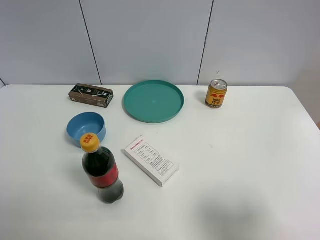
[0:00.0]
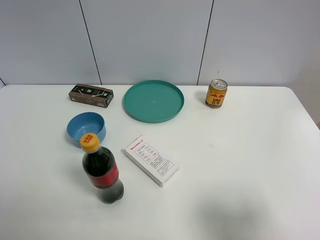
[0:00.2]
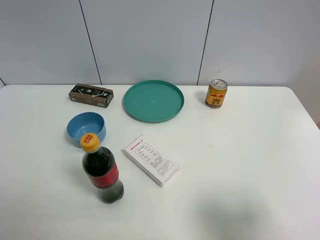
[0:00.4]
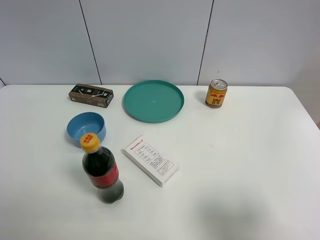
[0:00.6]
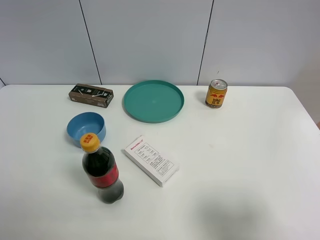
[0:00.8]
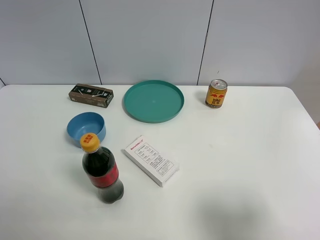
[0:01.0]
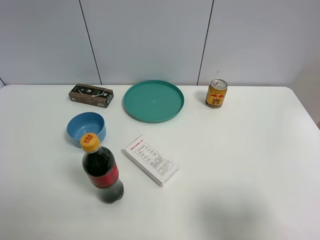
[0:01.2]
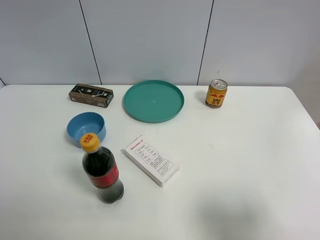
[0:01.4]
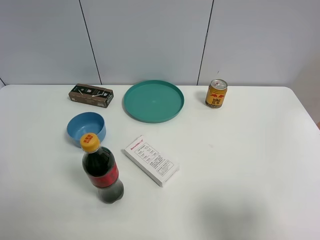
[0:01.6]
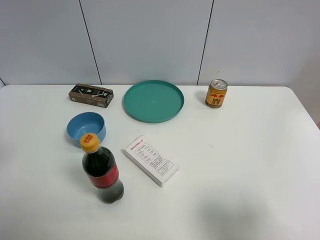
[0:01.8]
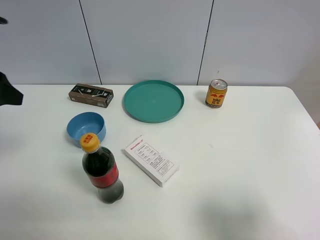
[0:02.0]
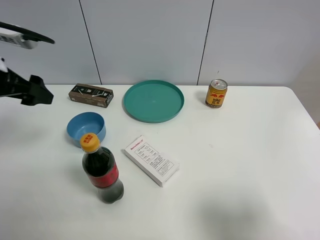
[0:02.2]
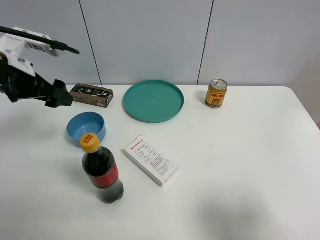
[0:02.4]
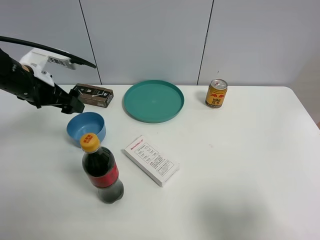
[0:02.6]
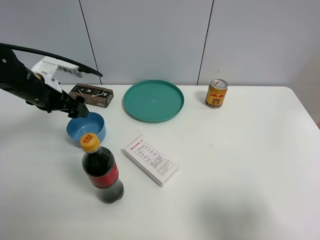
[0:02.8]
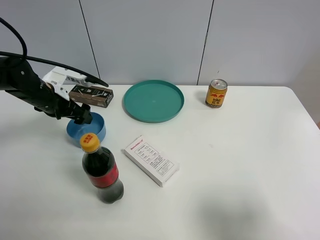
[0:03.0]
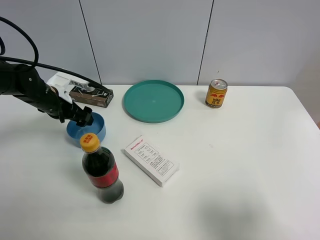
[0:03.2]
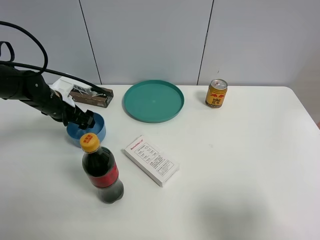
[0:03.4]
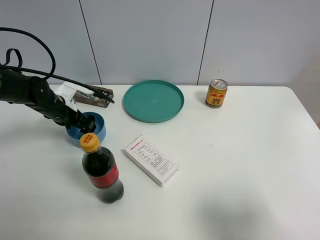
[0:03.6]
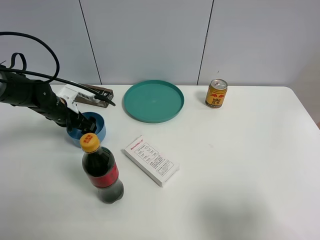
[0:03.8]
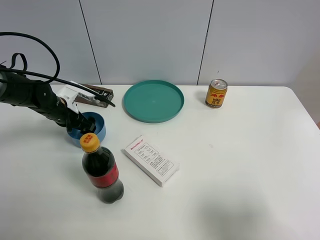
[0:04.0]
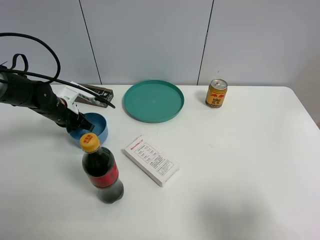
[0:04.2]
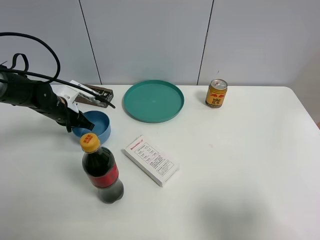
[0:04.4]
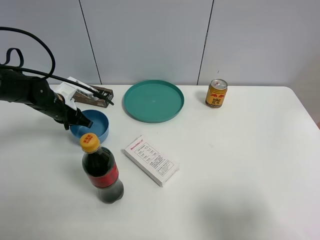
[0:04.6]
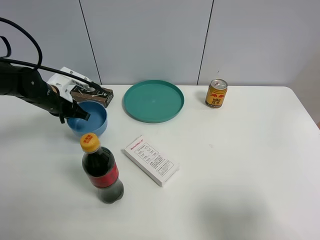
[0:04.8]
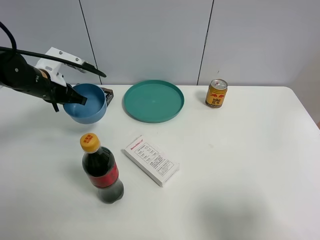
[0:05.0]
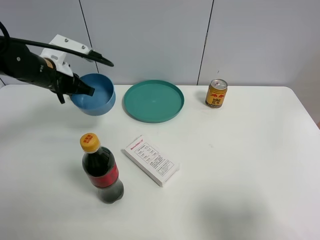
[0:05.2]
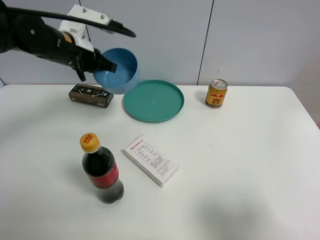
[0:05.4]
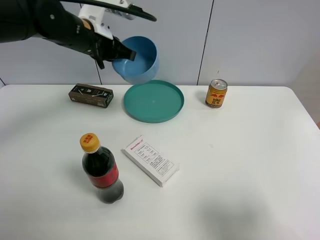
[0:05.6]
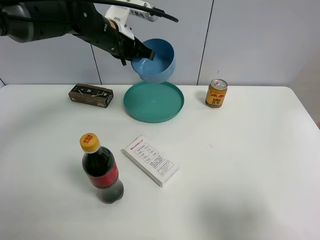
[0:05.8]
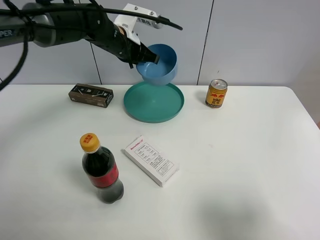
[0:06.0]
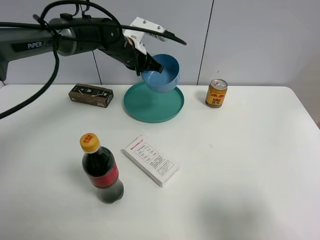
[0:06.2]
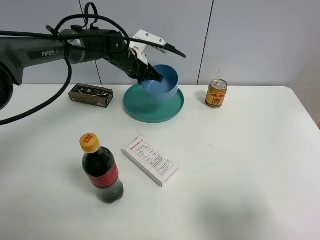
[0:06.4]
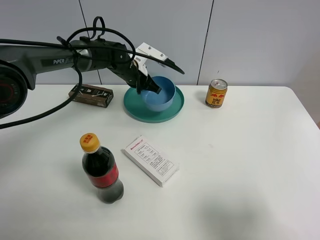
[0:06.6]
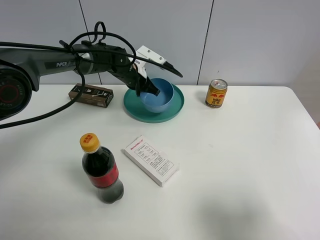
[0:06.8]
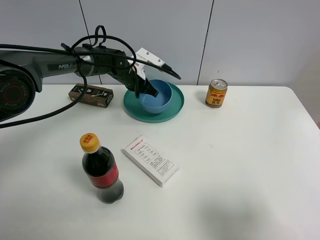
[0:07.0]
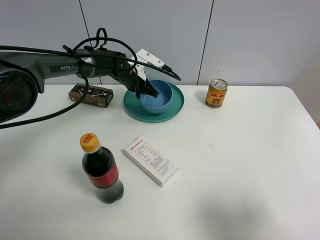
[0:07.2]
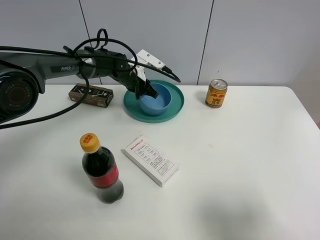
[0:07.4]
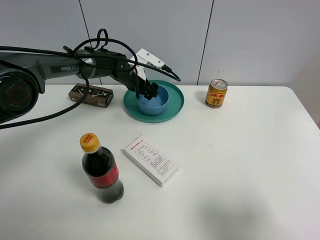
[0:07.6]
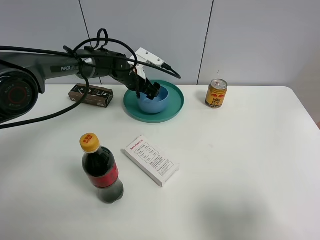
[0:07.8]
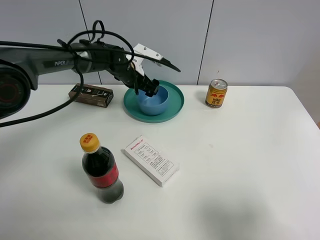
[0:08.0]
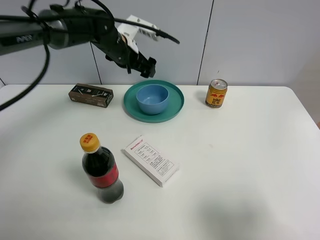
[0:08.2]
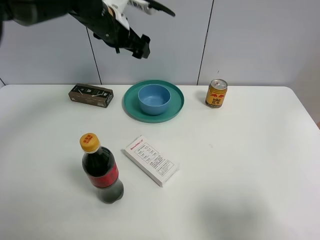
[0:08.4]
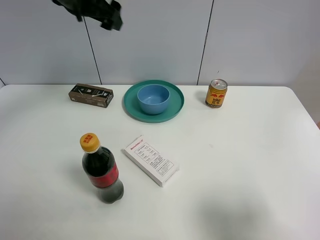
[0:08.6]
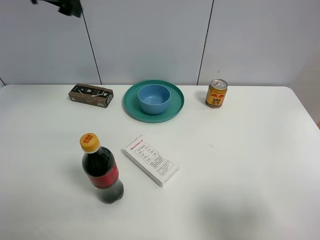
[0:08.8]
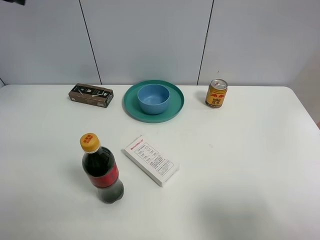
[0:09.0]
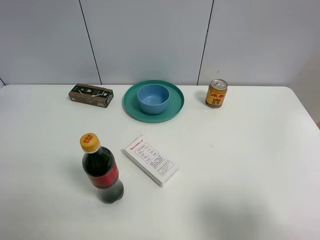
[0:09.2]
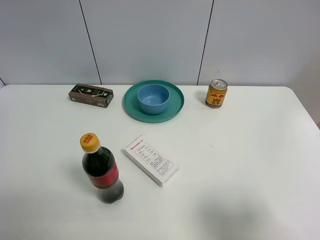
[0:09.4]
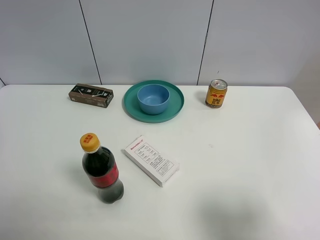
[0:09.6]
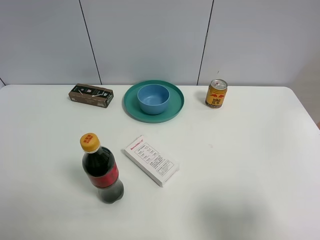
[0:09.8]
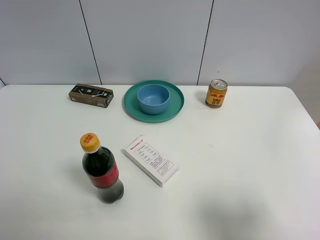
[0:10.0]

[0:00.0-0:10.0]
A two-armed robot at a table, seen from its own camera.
Task of the whole recording: the gripper move the object.
Step, 0:00.0 to 0:04.2: Grasp the blue bowl with the left gripper.
Step, 0:04.4 to 0:07.4: Place the blue bowl into the green plate with the left gripper.
0:01.4 to 0:02.8: The left gripper goes roughly 30 cm forward and downward.
0:02.8 to 0:04.2: The left gripper moves downward, approximately 10 cm, and closes its fingers.
0:04.2 to 0:05.8: The left gripper goes roughly 25 cm upward and to the right.
0:05.8 to 0:07.2: The left gripper is displaced downward and forward by roughly 15 cm.
0:07.2 to 0:08.6: The left gripper heads upward, covering approximately 25 cm, and opens up.
0:08.6 to 0:10.0: The left gripper travels backward by roughly 35 cm.

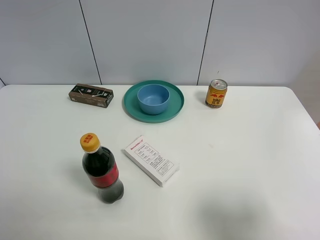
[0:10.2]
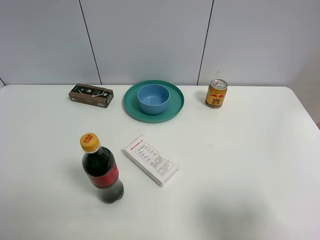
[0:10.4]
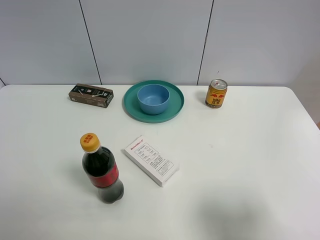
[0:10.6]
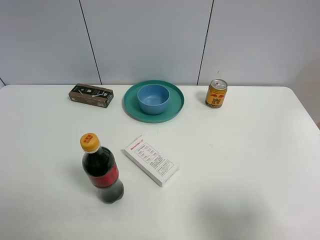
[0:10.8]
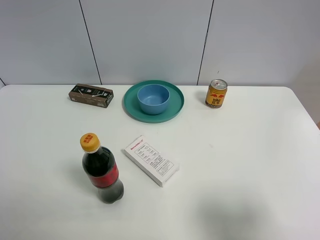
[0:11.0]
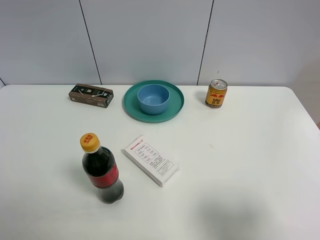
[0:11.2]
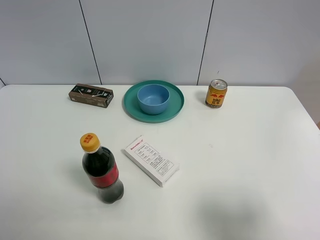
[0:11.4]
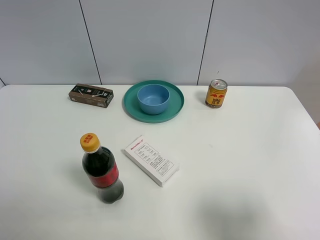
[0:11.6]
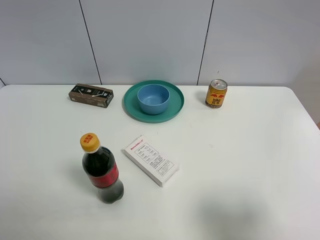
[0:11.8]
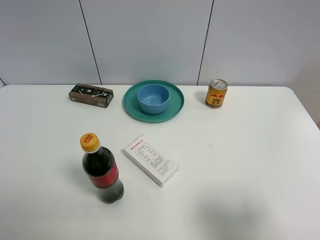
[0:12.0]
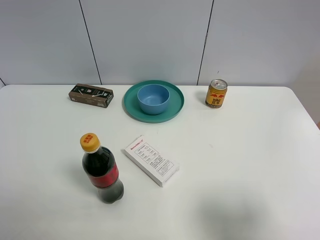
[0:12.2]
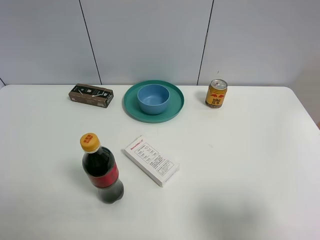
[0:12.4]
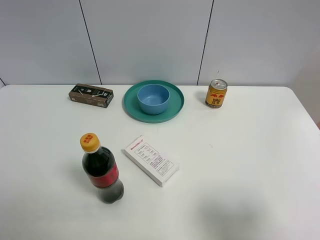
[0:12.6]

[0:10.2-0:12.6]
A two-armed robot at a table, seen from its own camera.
Task of the whole recording: the gripper move the object.
0:11.4 to 0:12.6: The two grippers keep their place.

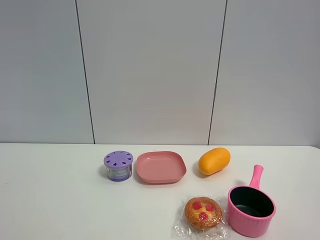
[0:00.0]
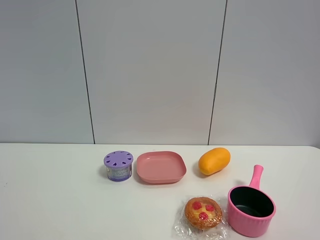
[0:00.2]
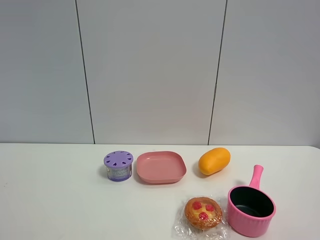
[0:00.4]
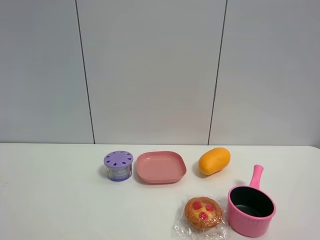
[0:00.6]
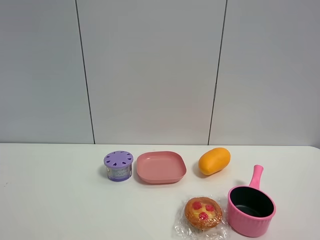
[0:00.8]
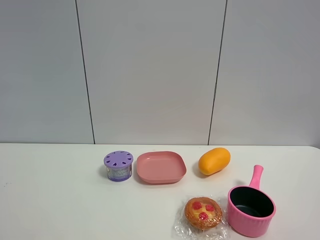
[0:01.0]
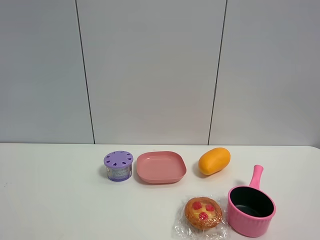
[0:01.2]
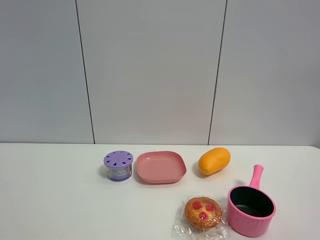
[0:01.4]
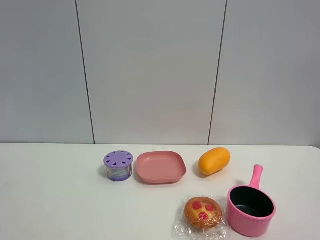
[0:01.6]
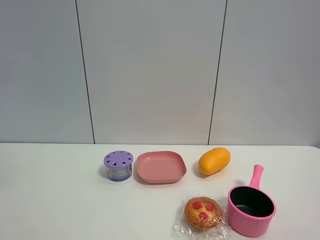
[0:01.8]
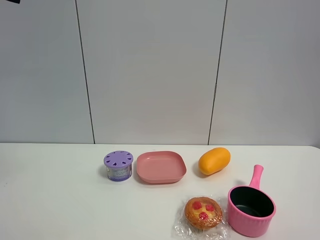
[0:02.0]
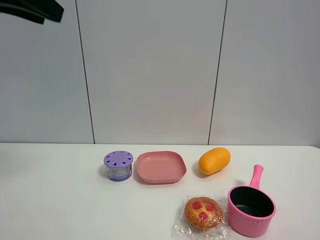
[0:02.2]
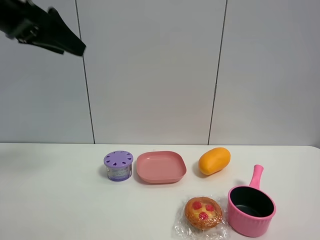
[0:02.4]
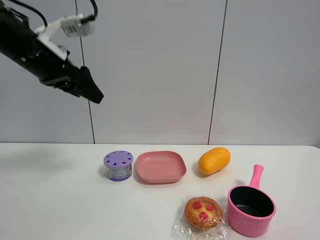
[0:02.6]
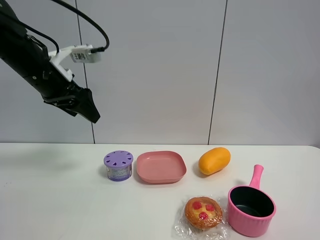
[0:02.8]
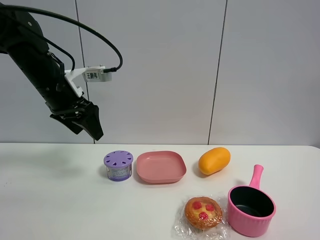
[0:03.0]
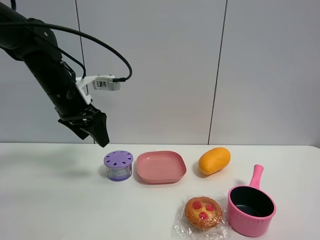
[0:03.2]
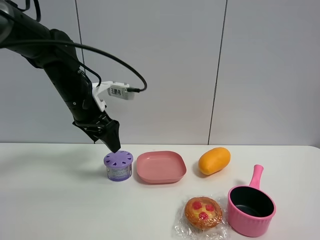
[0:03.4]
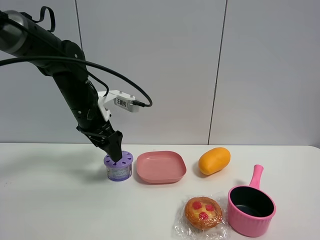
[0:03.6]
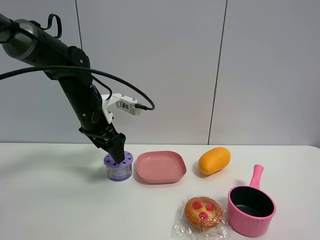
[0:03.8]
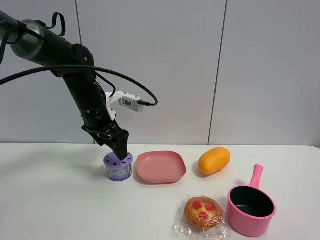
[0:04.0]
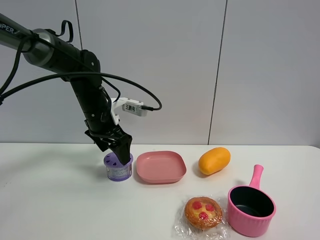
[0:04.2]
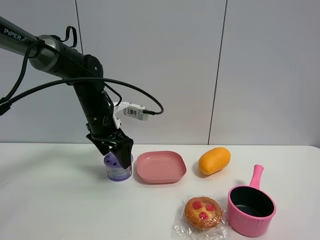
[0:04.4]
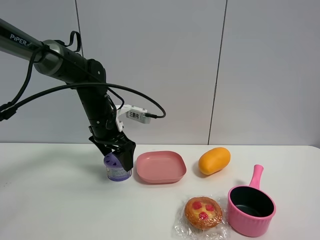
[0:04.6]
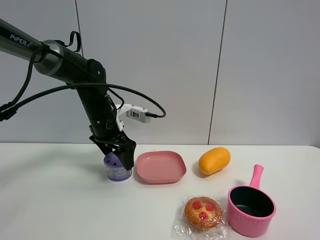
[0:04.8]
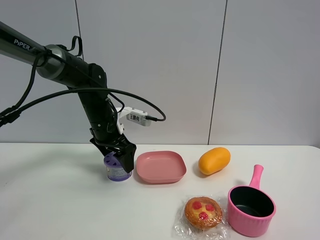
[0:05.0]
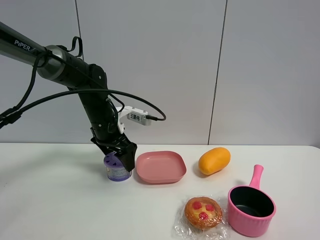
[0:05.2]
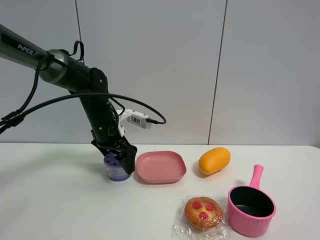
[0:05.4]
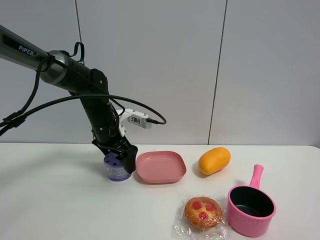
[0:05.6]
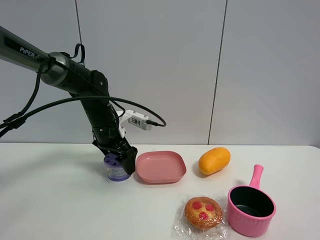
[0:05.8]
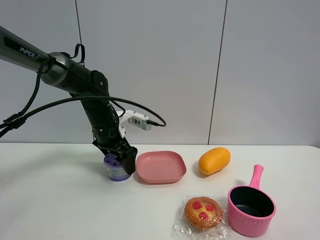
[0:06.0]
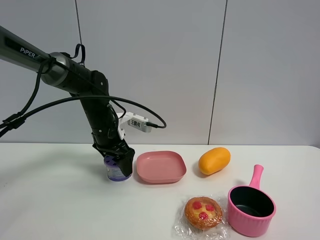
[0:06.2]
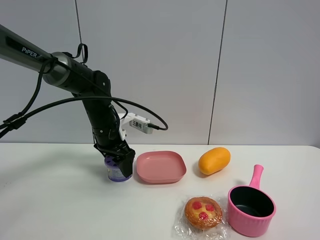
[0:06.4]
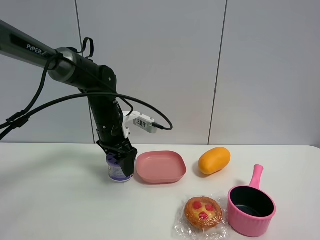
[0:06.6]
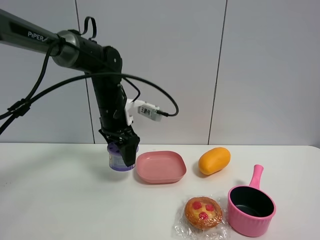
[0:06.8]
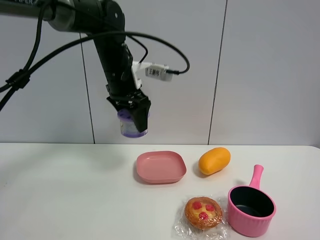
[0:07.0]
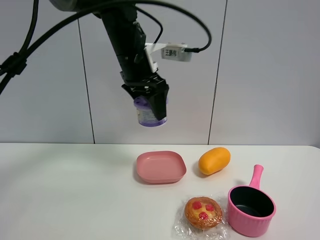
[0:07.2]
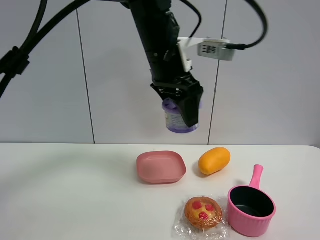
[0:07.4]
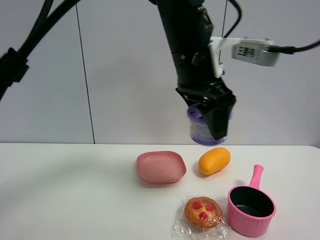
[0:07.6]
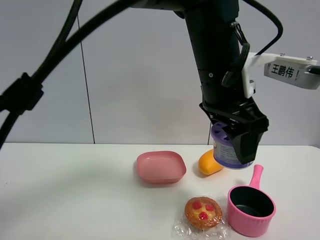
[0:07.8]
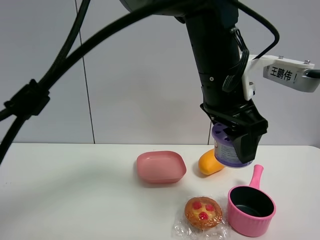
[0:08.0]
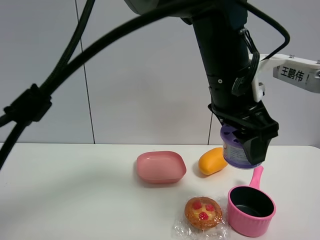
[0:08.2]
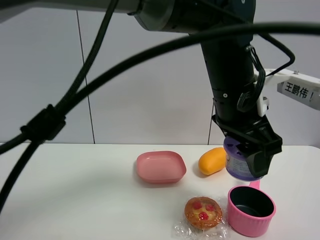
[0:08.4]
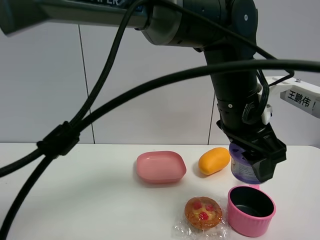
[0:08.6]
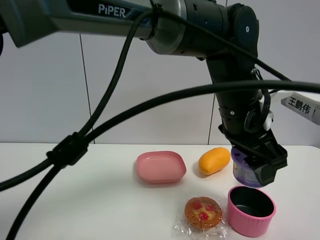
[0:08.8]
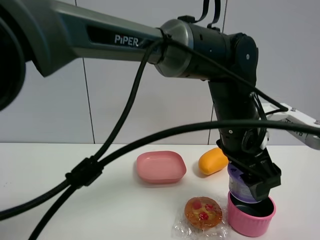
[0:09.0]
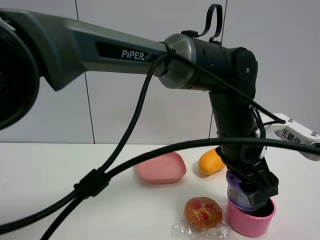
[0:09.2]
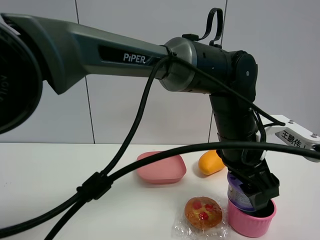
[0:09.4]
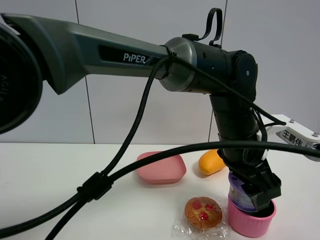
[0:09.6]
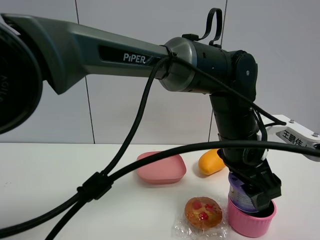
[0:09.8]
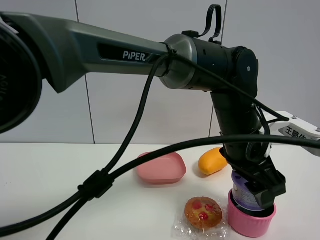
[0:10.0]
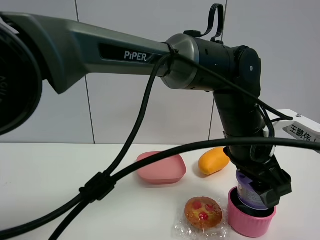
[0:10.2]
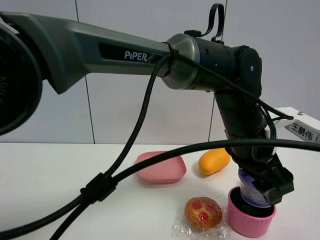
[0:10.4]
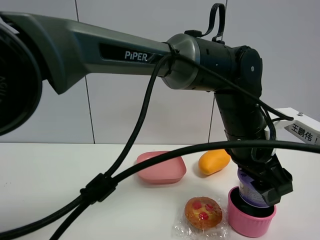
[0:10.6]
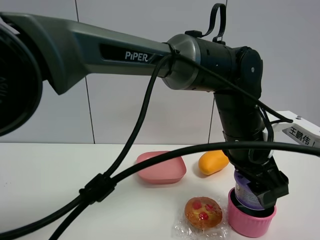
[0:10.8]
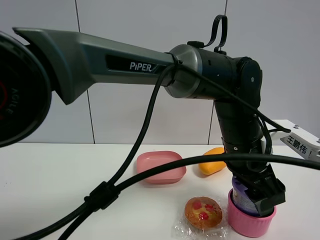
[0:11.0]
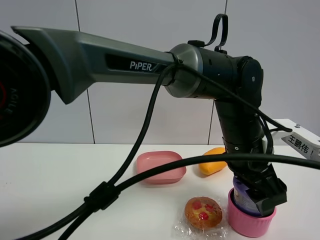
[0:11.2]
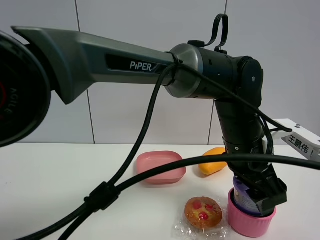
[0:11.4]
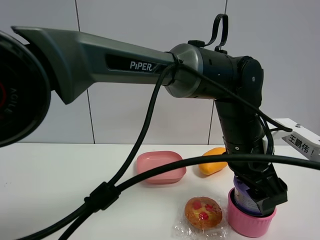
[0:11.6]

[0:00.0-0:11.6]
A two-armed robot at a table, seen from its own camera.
Task of the whole recording: the gripper move the object.
Step, 0:00.0 to 0:06.4: Grasp the Incense box with the left gripper.
0:01.4 to 0:02.8: The left gripper moves forward and downward, about 35 cm.
0:02.8 to 0:04.4: The left gripper is displaced downward, to the right and forward by some 15 cm, and opens up.
0:04.4 to 0:05.8: The grippers make only small movements.
0:05.8 to 0:07.2: The left gripper shifts some 20 cm upward and to the right, and closes.
0:07.2 to 0:08.8: The left gripper shifts some 20 cm to the right, backward and downward.
